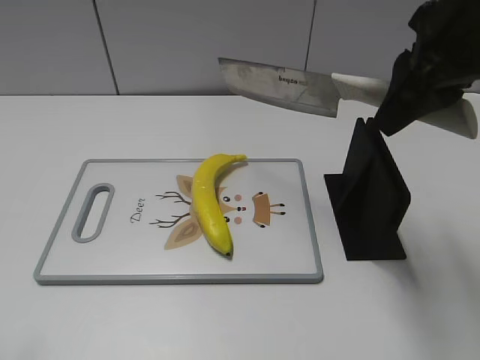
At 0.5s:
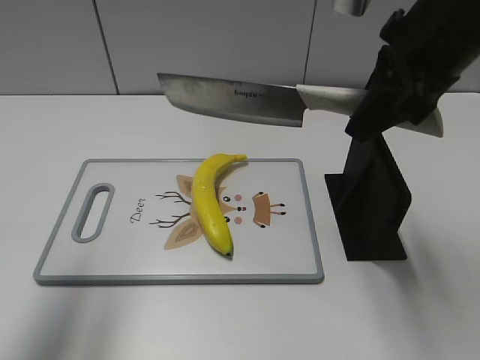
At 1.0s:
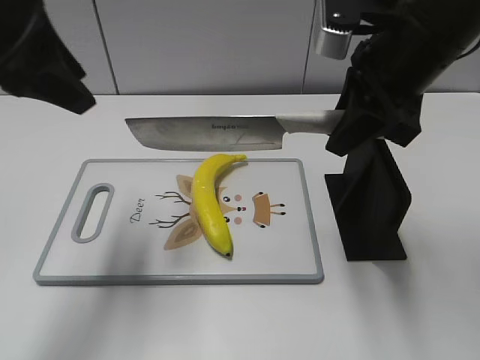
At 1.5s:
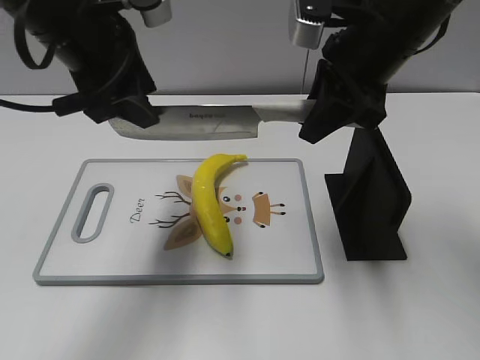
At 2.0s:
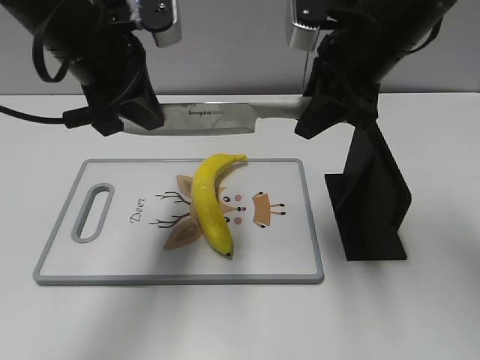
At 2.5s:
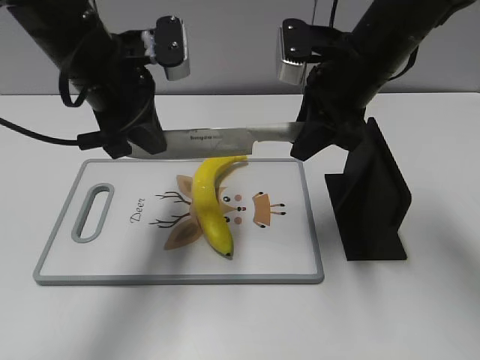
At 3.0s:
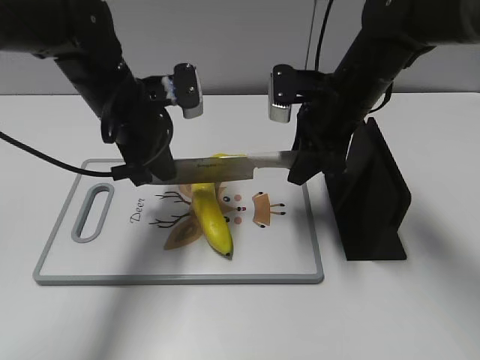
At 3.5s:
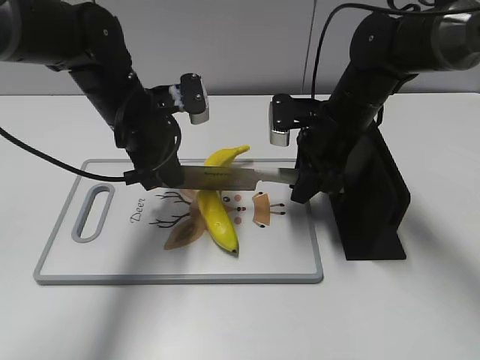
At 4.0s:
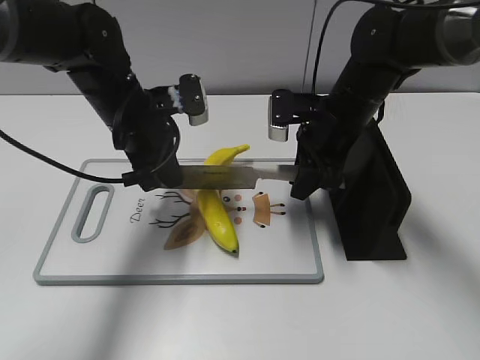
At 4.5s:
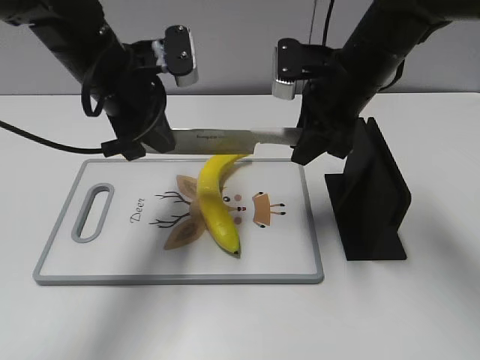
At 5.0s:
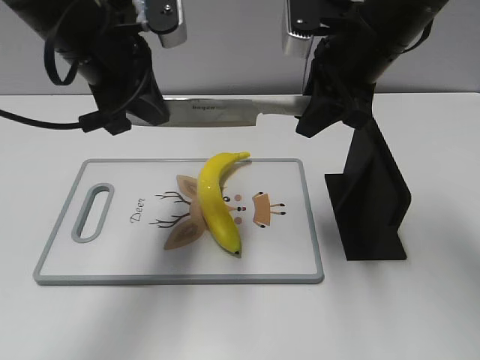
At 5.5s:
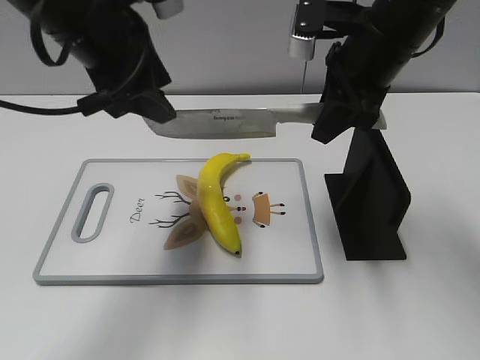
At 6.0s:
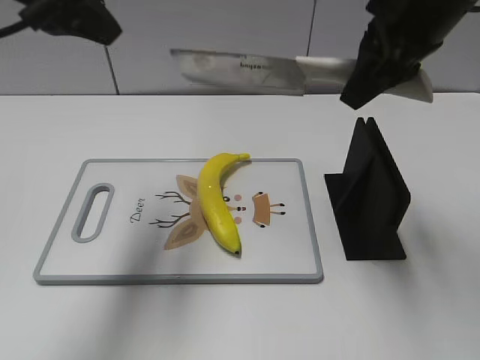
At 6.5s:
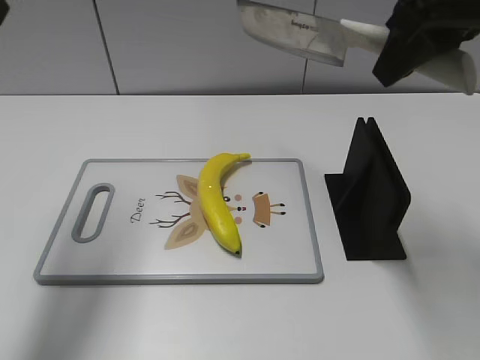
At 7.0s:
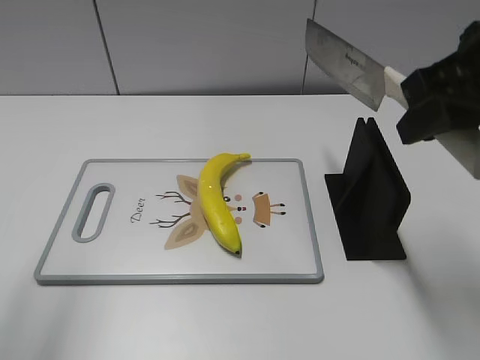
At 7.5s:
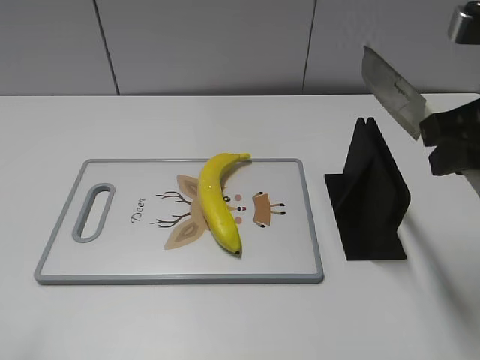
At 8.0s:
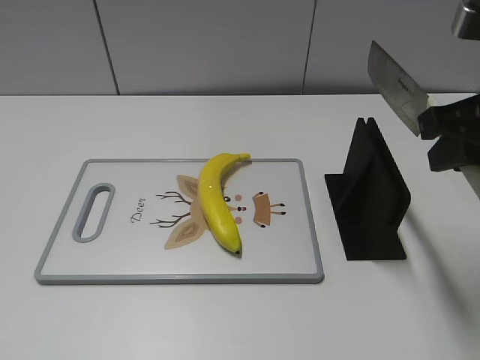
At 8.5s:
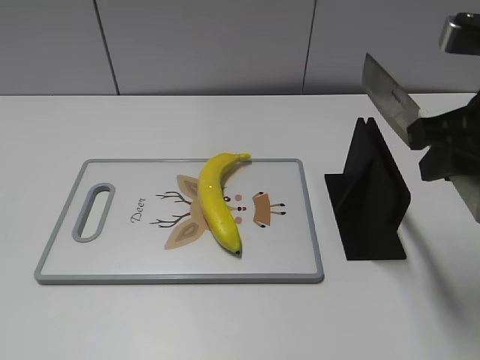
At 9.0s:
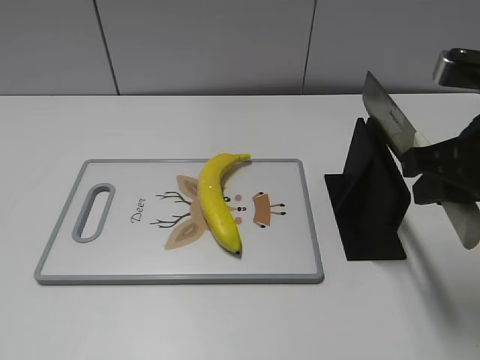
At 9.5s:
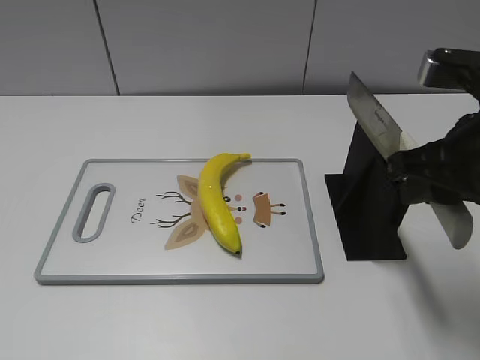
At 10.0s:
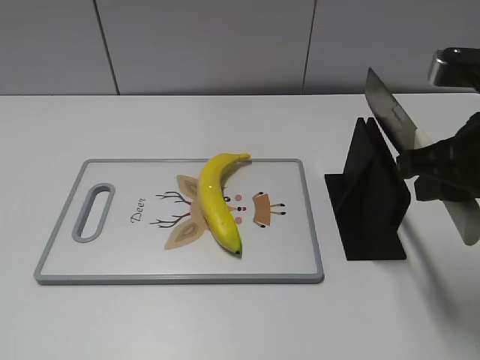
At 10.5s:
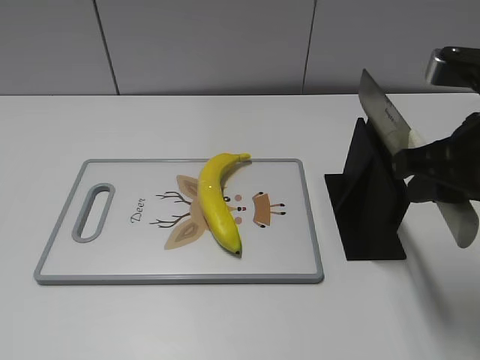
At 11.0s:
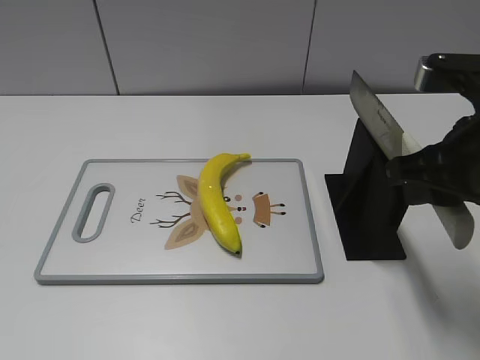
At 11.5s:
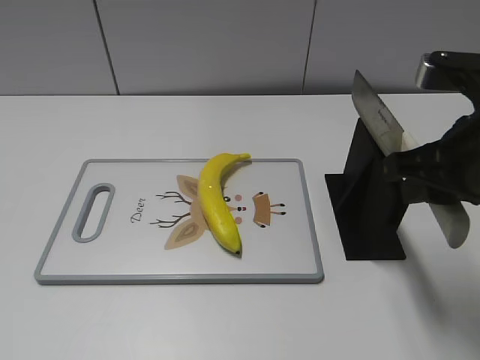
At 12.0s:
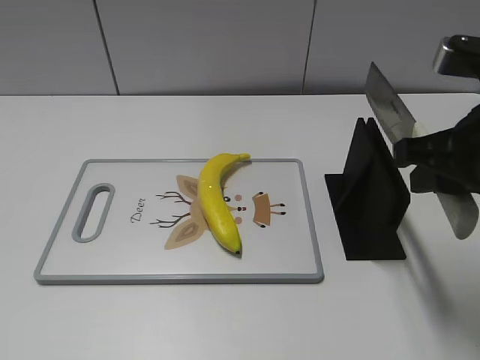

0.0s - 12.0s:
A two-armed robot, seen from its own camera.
Task of the whole recording: cut plastic banana.
Step, 0.0s - 4.0s: Lift the knife with your right hand.
Step, 4.5s - 6.0s: Cut the banana with your right hand.
Step, 7.0s - 7.5s: Lift the knife with your right hand.
0.0s - 2.0s: The left gripper moves forward and to the right, approximately 30 cm, and closes; the right gripper is displaced forward and downward by about 10 cm.
2.0s - 4.0s: The grippers both shift downward by some 10 cm.
4.0s - 6.0s: The two grippers go roughly 20 cm upward. The left gripper opens up.
6.0s - 8.0s: The left gripper is displaced backward and to the left by roughly 30 cm. The right gripper is displaced backward and to the right by approximately 10 cm.
8.0s - 10.0s: The grippers make only small movements.
10.0s - 12.0s: Both grippers stay put.

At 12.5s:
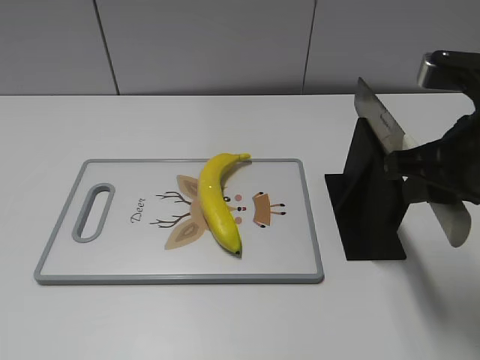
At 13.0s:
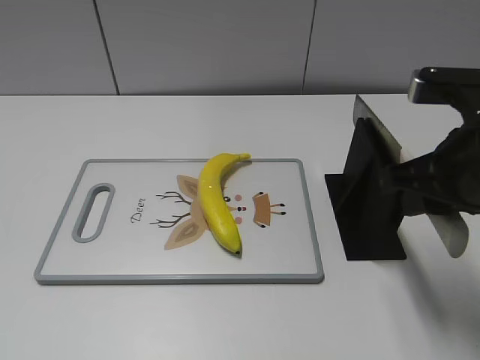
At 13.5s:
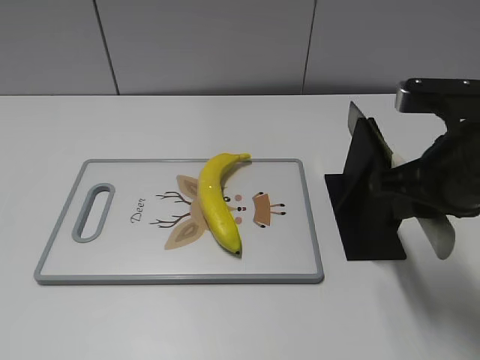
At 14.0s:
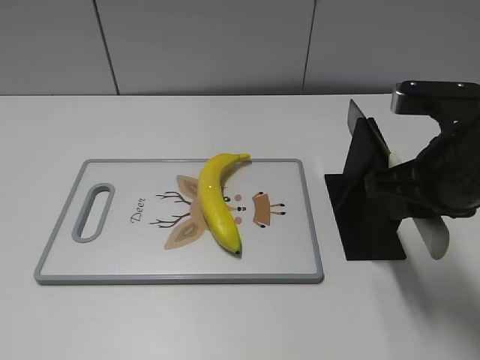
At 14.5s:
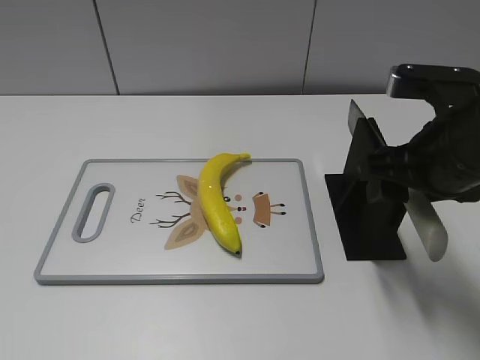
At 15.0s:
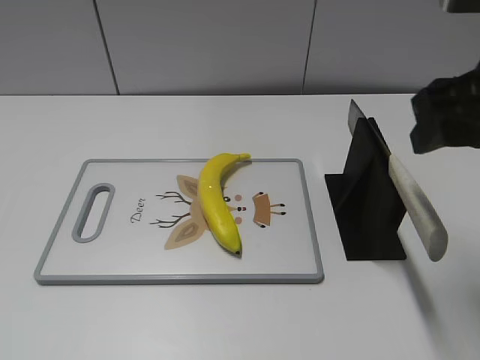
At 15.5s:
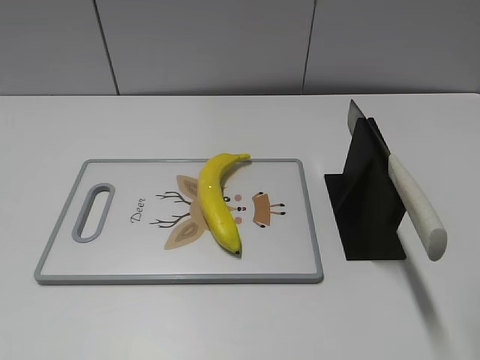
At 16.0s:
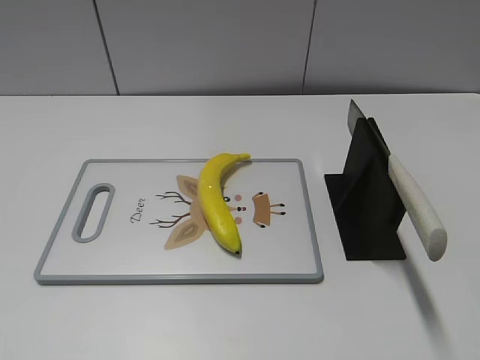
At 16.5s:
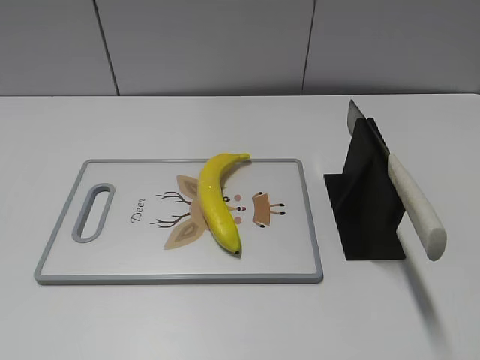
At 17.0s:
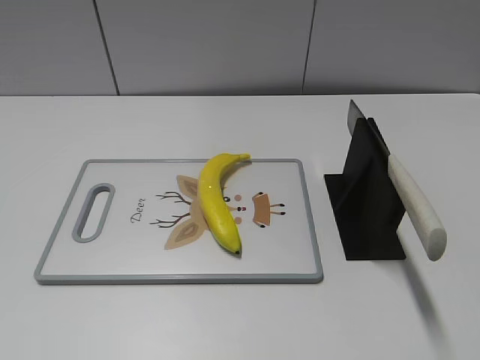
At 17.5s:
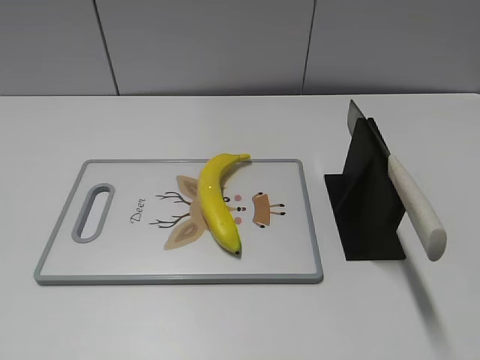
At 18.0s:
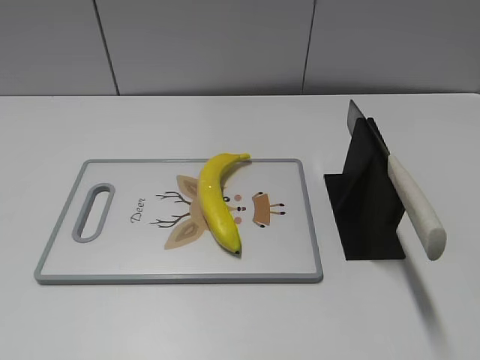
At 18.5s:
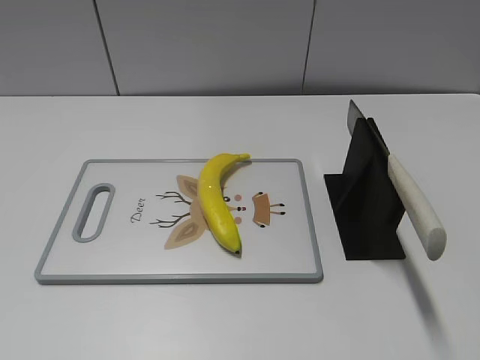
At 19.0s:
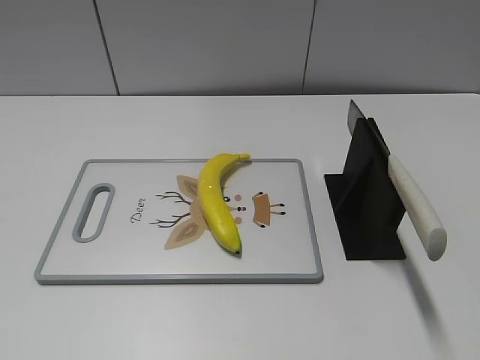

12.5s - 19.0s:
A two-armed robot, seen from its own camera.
Task of the whole recording: cut plastic banana.
Step, 12.5s - 19.0s: Place the knife on the storage rack with your right hand.
12.5s - 14.5s: The right gripper opens up.
14.5s - 17.0s: The right gripper travels backward and to the right by some 25 cm.

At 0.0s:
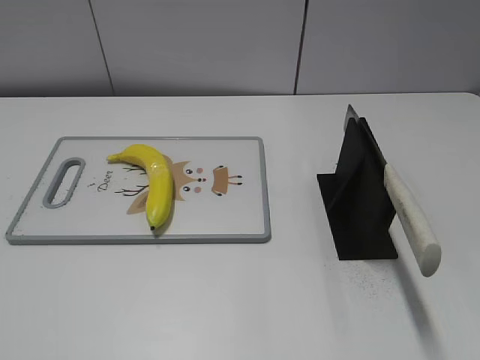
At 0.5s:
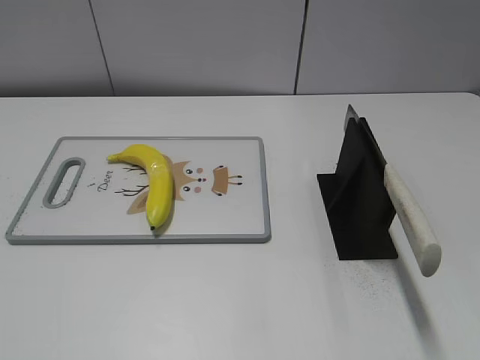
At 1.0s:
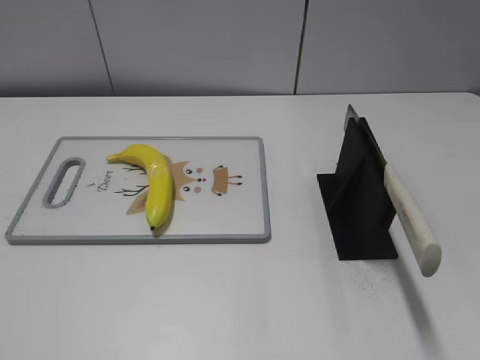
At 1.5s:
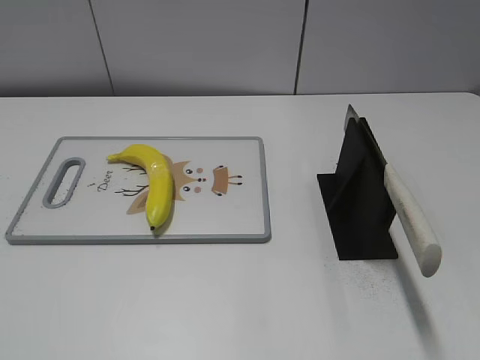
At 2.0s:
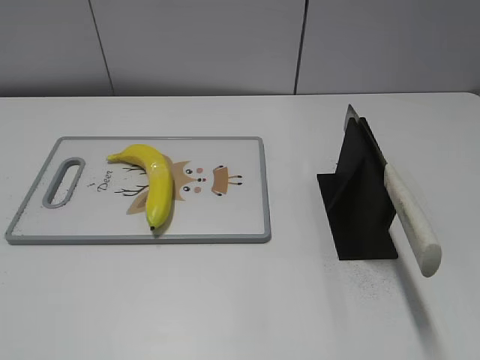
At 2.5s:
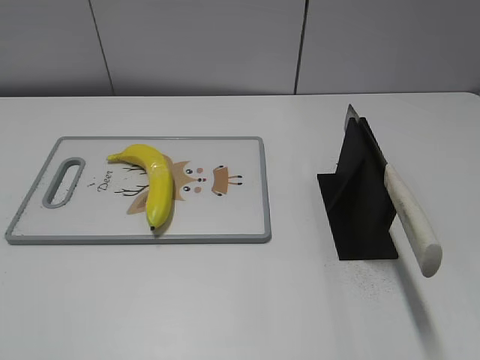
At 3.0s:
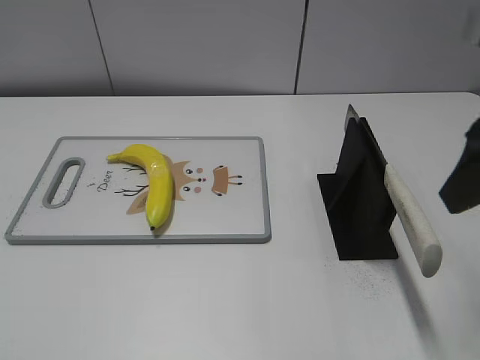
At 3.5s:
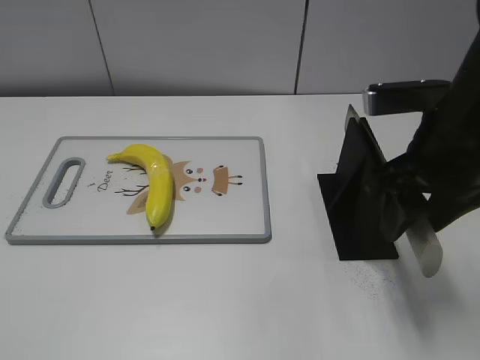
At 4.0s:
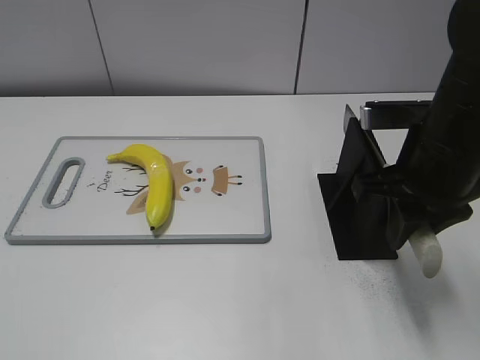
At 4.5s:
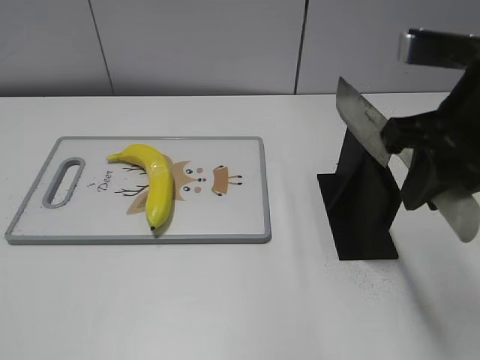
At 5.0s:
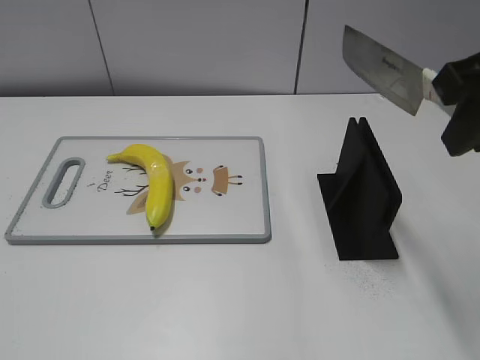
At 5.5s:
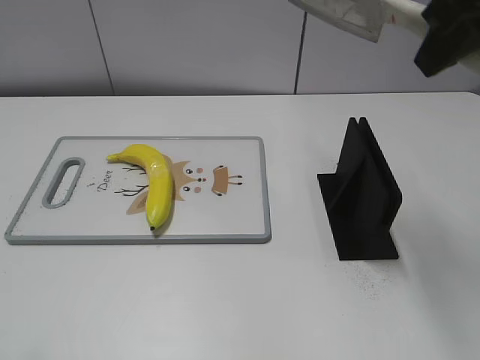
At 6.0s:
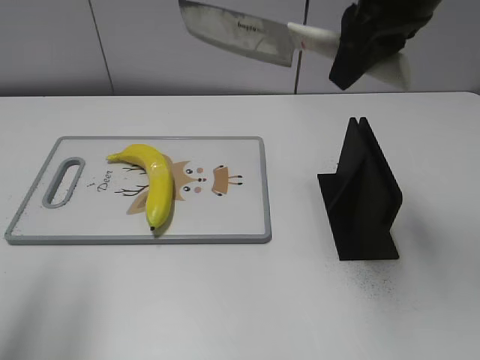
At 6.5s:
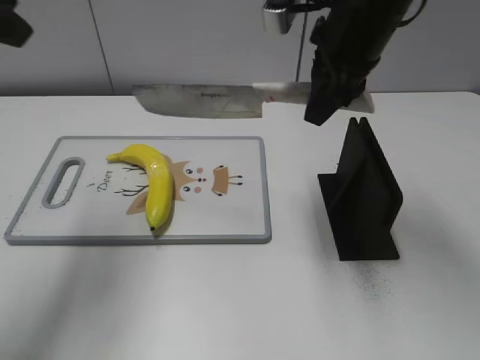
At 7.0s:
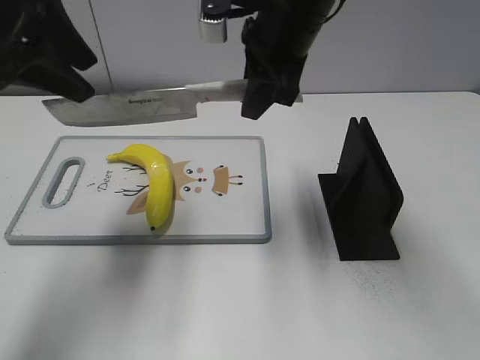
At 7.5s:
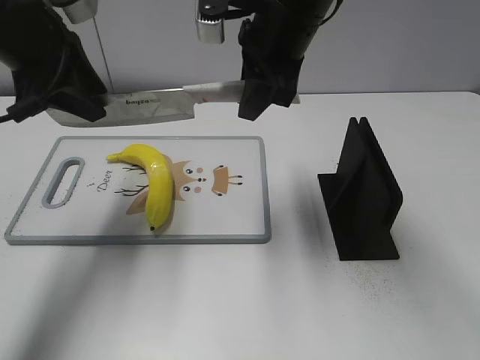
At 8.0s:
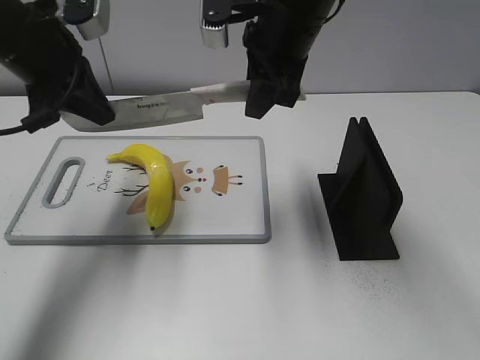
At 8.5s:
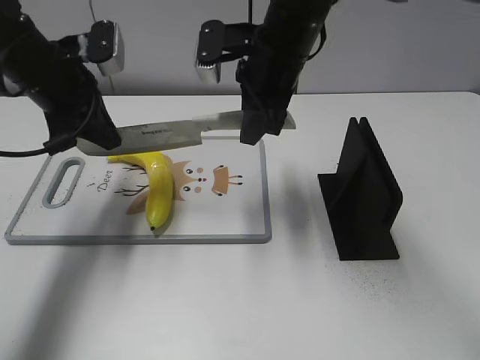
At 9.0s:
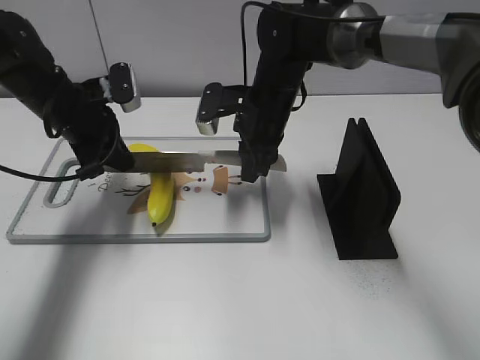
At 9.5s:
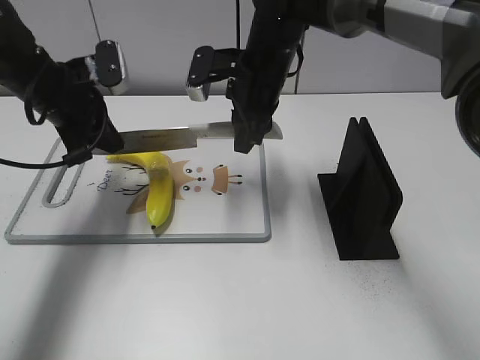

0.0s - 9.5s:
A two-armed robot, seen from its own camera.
Task of the whole recording: cut plastic banana.
Step, 0.0s - 4.5s: Grab the knife handle with your right hand.
2.0s - 4.0s: The right gripper travels forward, to the left and downward by roughly 30 cm, and closes its fingers.
4.0s - 5.5s: The right gripper goes some 15 cm upward.
5.5s - 7.5s: The left gripper goes roughly 30 cm forward. Meanwhile the right gripper travels to the left, forward and downward by about 20 cm.
7.5s - 9.5s: The left gripper shifts approximately 10 cm downward, and closes, while the right gripper is displaced downward and forward by roughly 10 cm.
